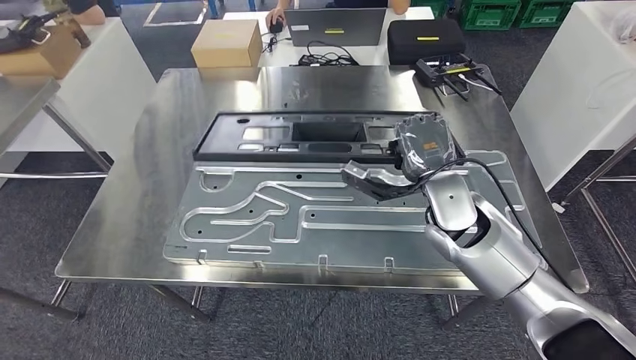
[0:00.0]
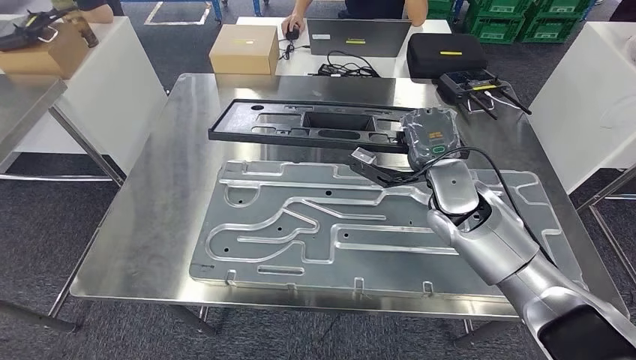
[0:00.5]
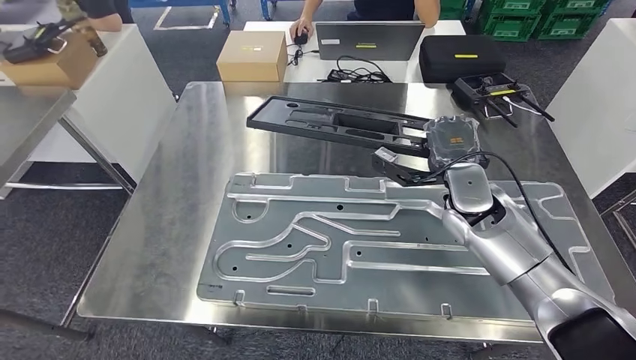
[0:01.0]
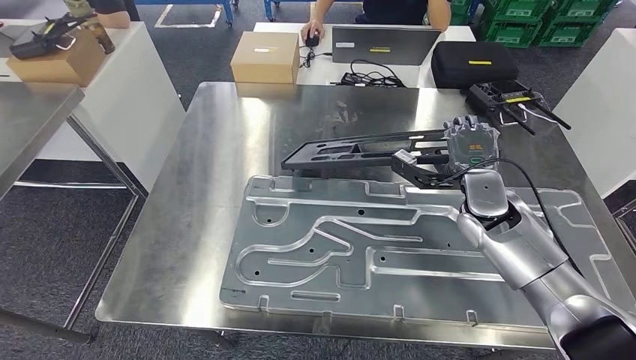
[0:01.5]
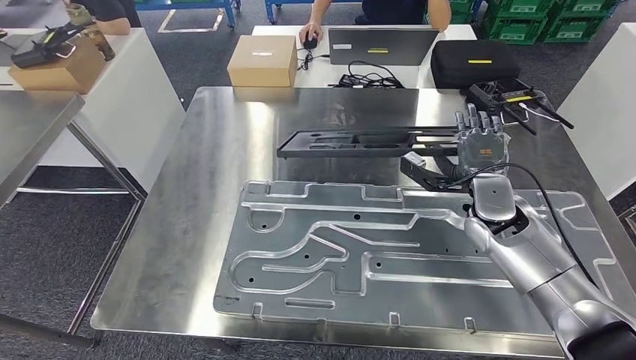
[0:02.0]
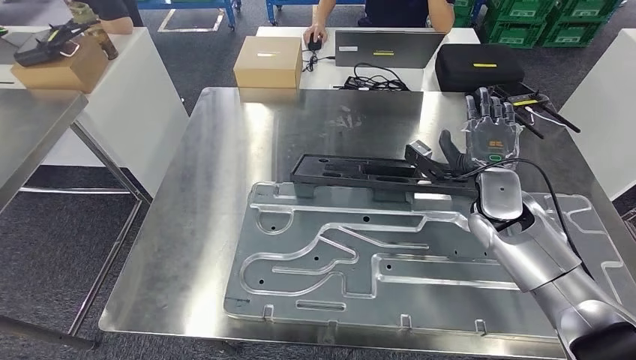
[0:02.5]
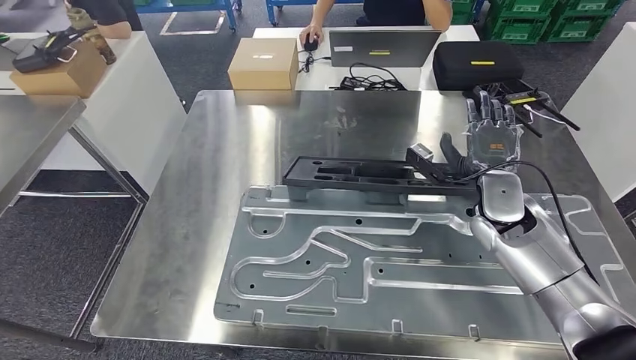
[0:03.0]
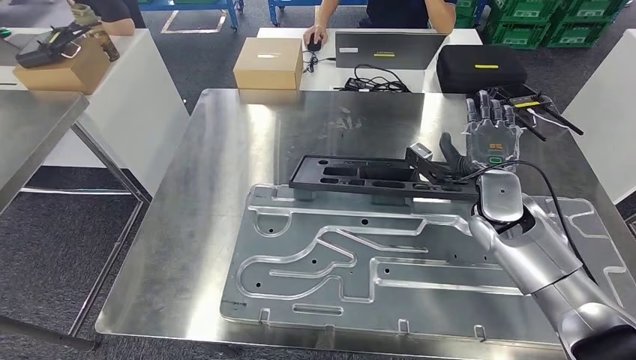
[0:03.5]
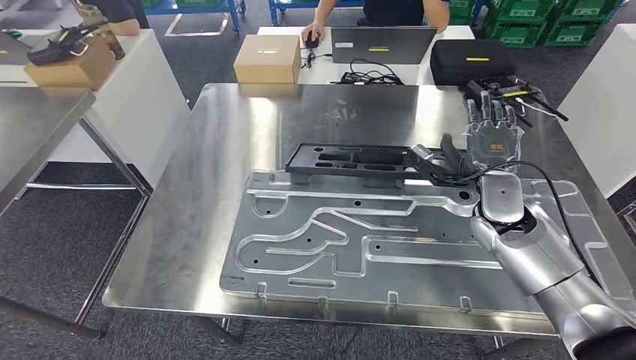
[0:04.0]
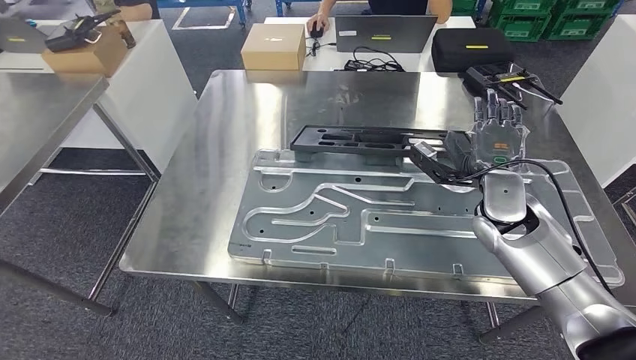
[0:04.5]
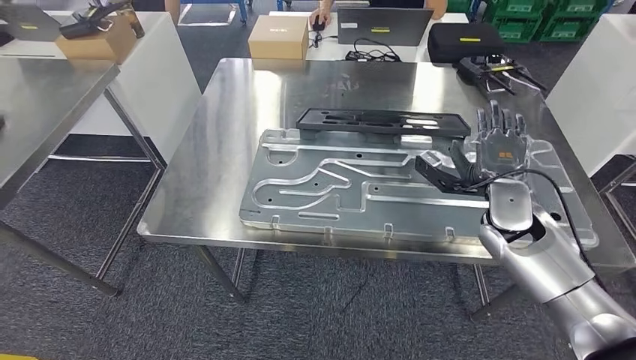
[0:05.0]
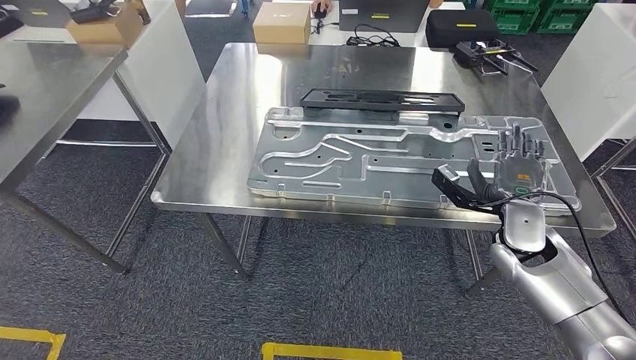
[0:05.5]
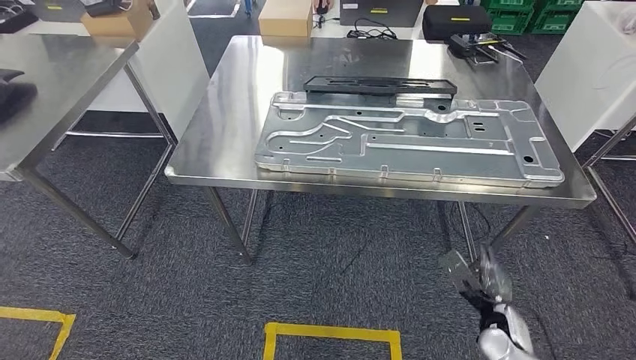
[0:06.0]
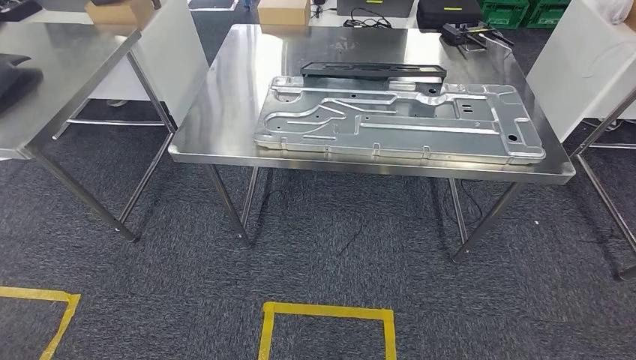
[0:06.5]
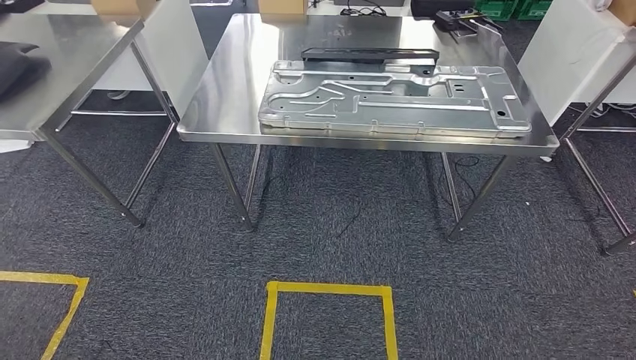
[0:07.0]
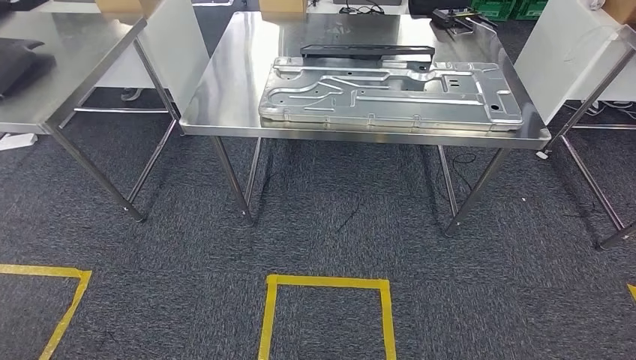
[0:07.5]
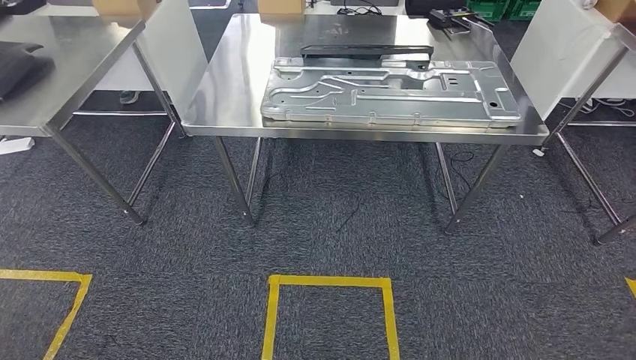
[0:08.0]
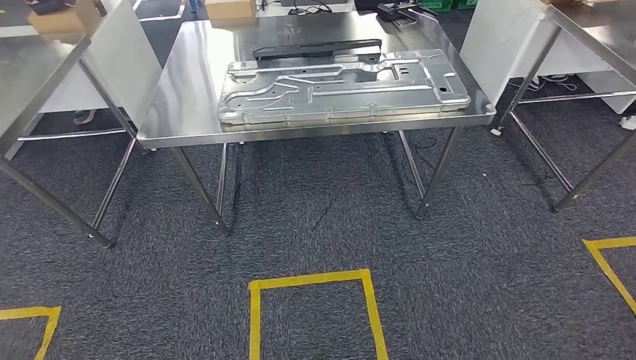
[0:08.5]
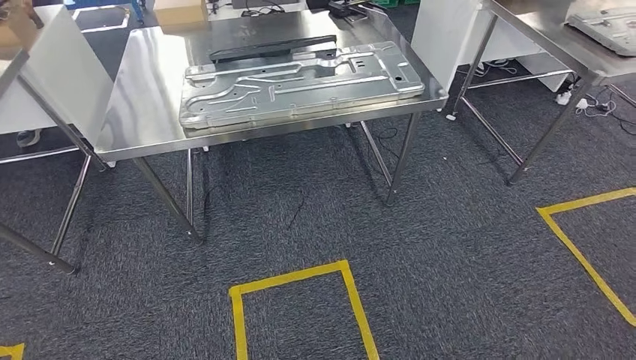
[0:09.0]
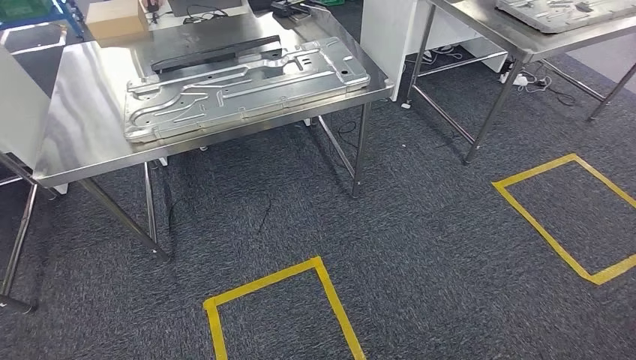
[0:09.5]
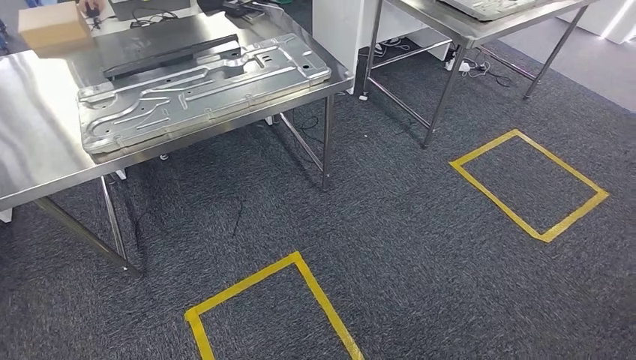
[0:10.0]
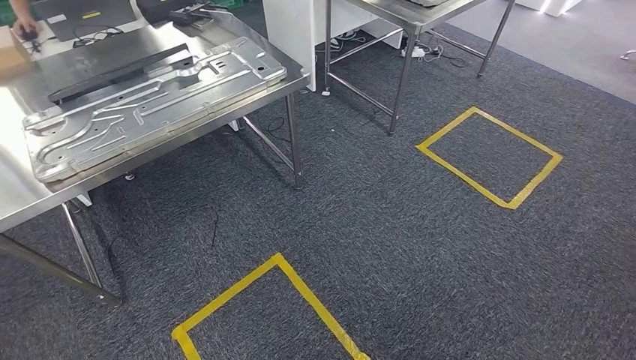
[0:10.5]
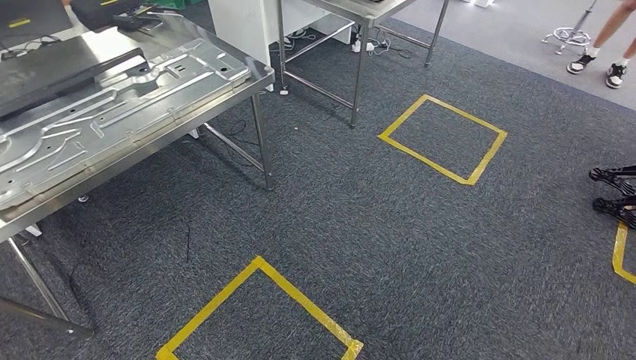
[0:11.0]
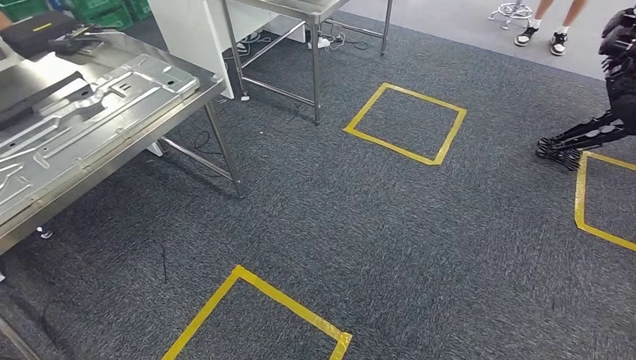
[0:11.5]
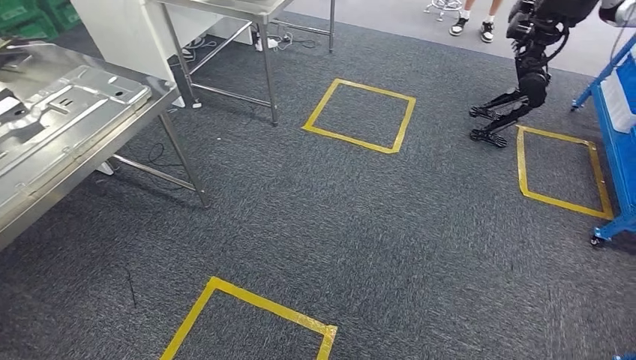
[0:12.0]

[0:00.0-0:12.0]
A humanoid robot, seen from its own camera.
Step, 0:00.0 to 0:06.0: Insert the large material into the corresponding slot on the workbench.

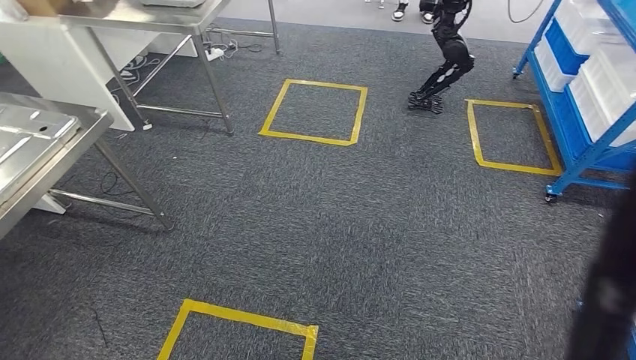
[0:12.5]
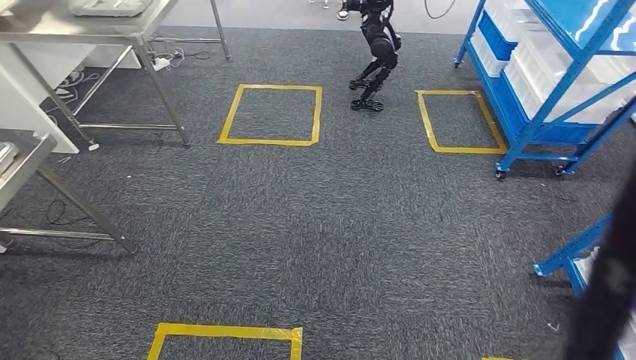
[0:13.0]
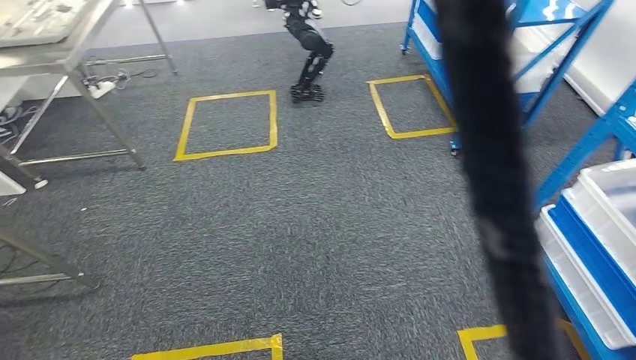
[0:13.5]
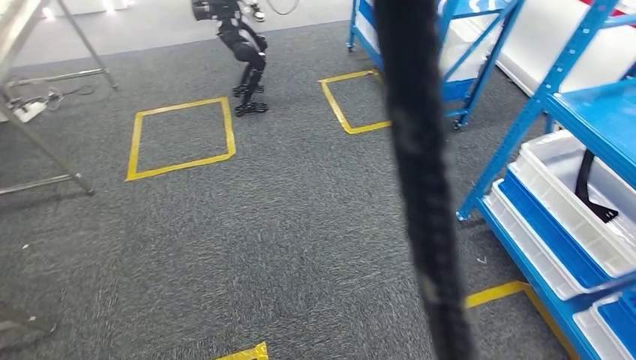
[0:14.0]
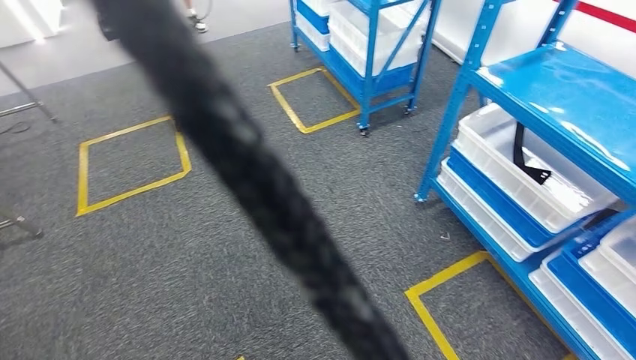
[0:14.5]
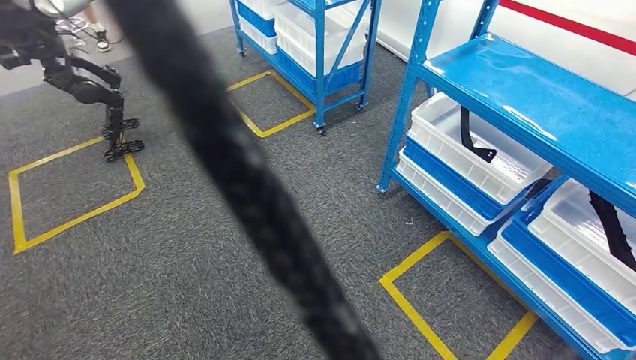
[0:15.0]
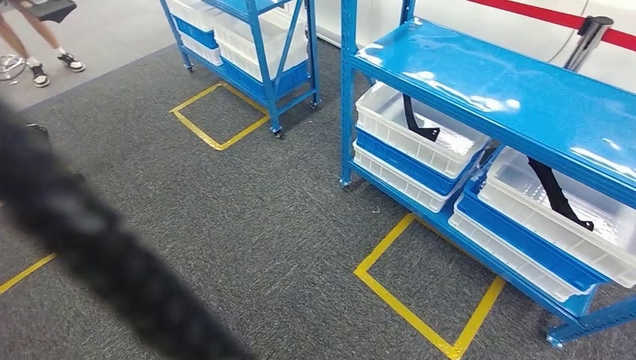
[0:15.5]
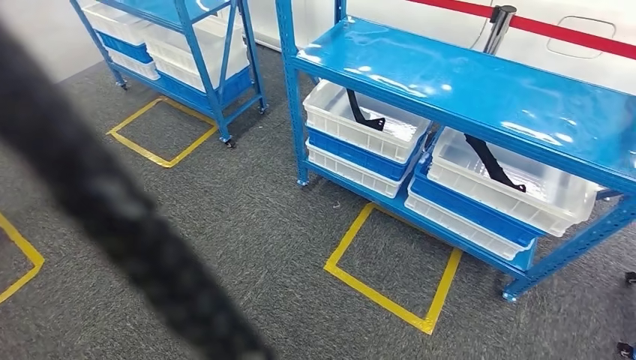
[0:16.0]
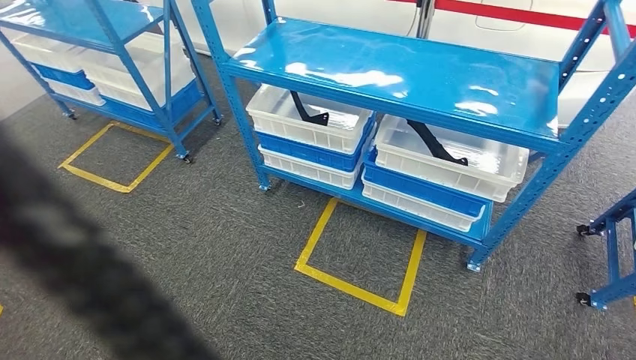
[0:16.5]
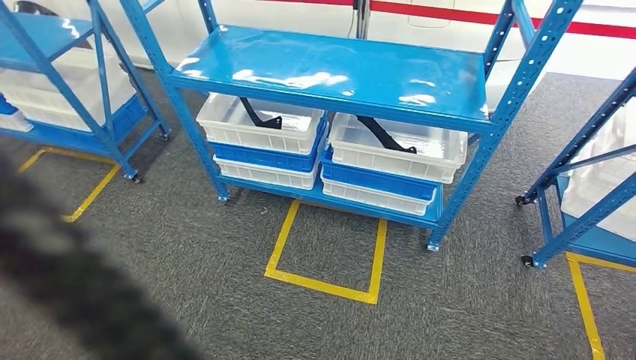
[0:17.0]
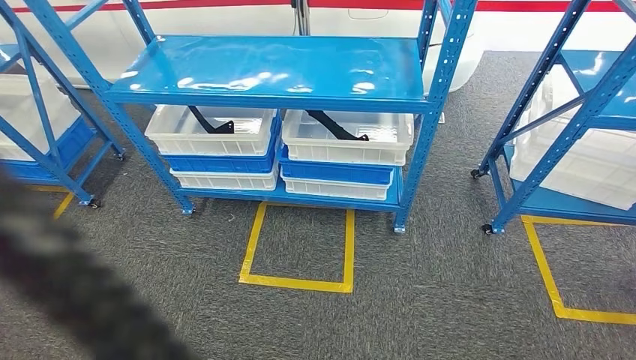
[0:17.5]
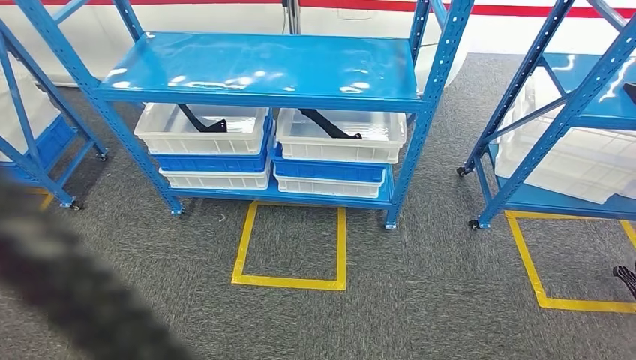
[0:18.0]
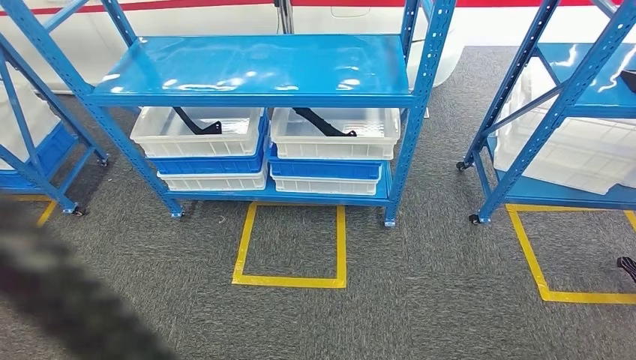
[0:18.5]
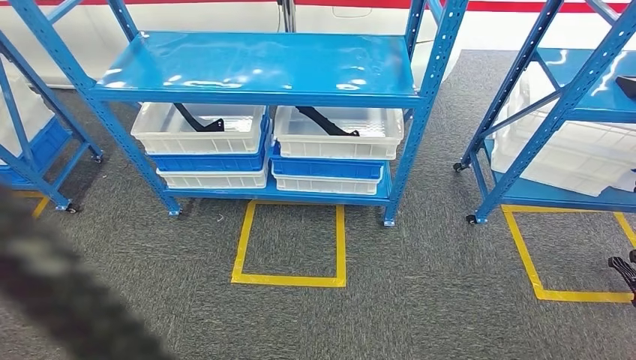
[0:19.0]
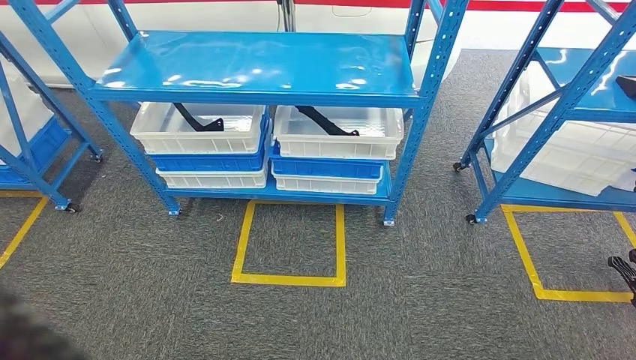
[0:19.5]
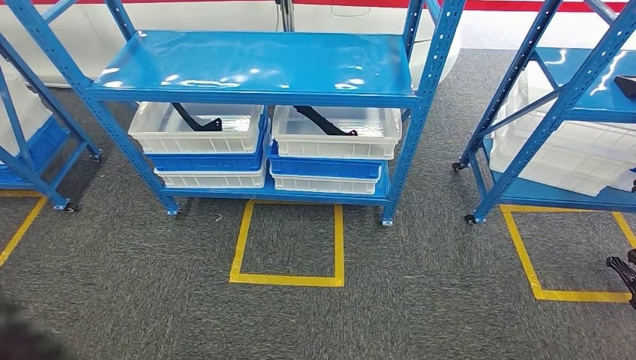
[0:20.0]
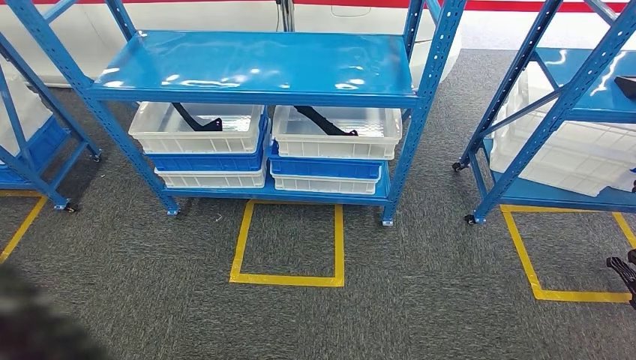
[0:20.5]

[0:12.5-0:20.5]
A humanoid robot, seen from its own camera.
Step, 0:12.5 to 0:20.5: Move to the initial position of the shelf.
